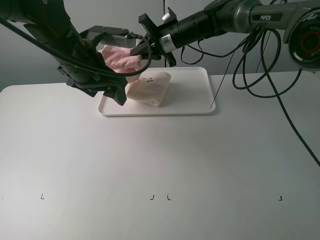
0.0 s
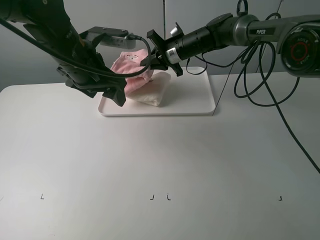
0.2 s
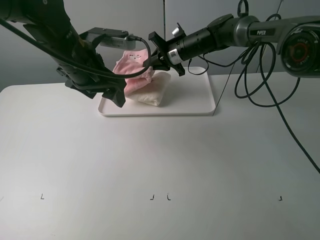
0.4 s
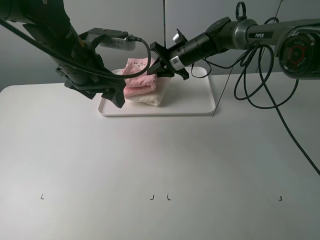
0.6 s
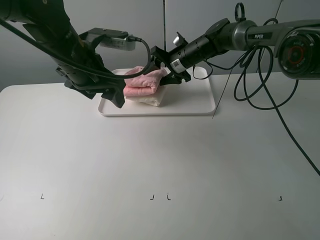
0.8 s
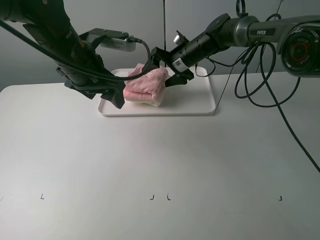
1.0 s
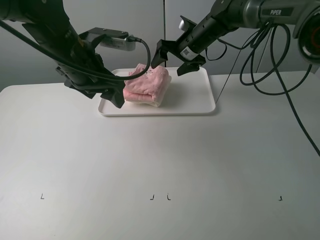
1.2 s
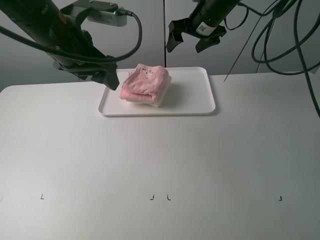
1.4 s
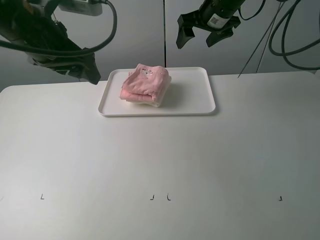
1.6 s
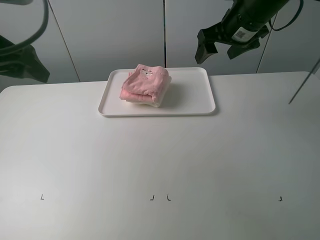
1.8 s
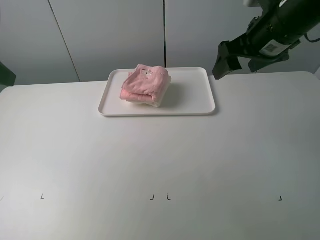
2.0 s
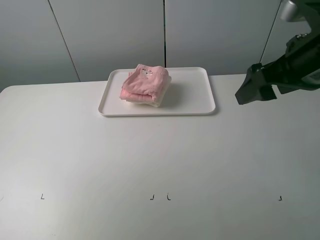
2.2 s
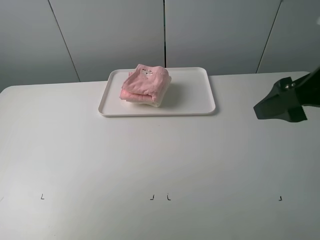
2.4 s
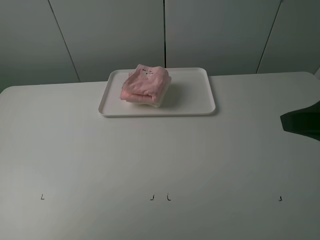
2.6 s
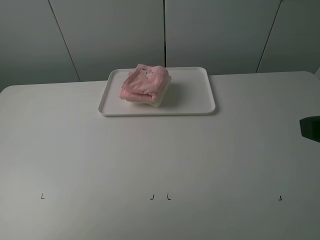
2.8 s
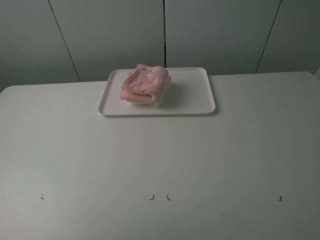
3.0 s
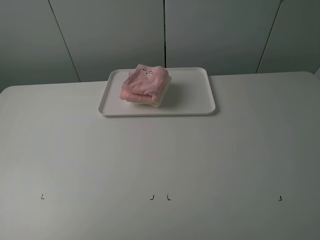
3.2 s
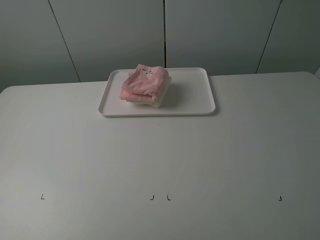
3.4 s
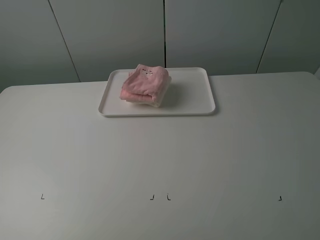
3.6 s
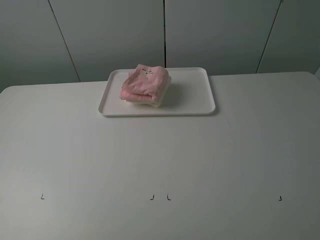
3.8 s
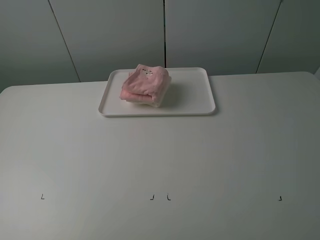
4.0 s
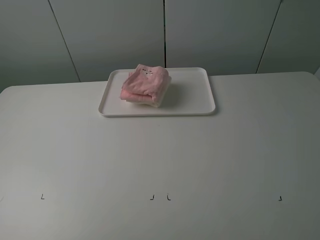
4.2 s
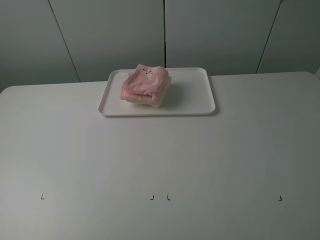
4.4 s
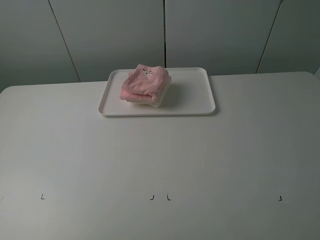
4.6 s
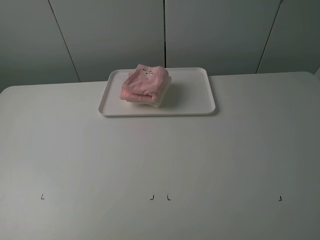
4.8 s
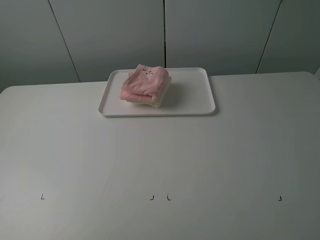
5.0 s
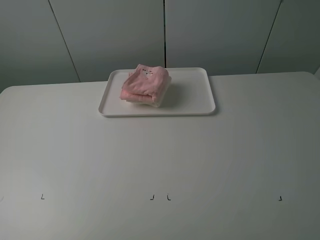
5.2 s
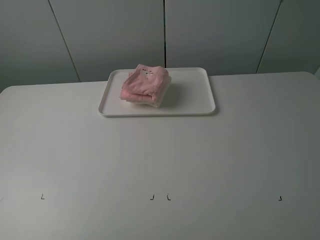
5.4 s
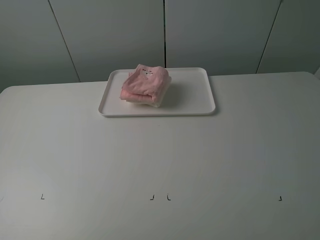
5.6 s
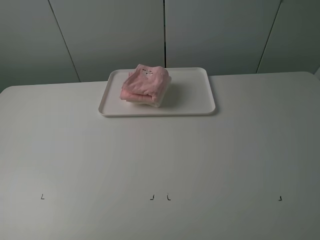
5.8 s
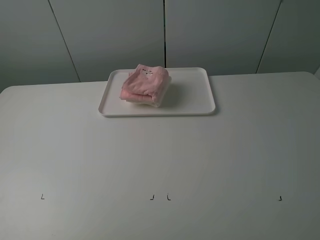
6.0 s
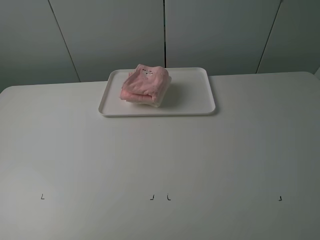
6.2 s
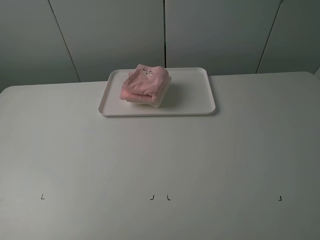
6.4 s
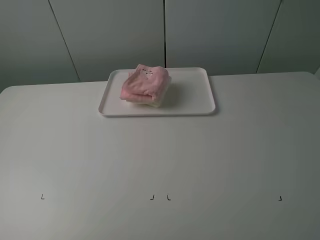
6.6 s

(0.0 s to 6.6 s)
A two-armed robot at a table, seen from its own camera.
Task of the whole recording: fold one of the towels by two grippers and place it on the tray,then fold another towel by two grippers and place it on the folded towel.
0.0 s - 1.6 s: The left gripper shifts about 10 cm upward and to the left. Meanwhile the right gripper is displaced to the right and upward by about 10 cm, and opens its fingers.
1.6 s - 3.2 s: The left gripper goes roughly 30 cm backward and to the left; the right gripper is displaced backward by some 40 cm.
5.0 s - 6.6 s: Both grippers stay put.
